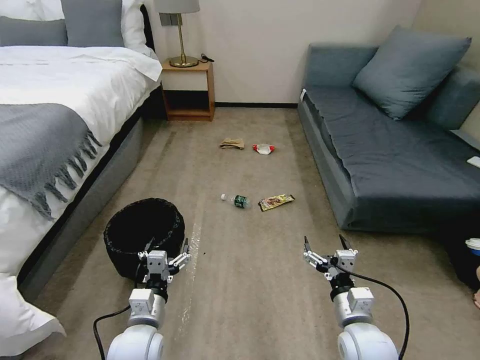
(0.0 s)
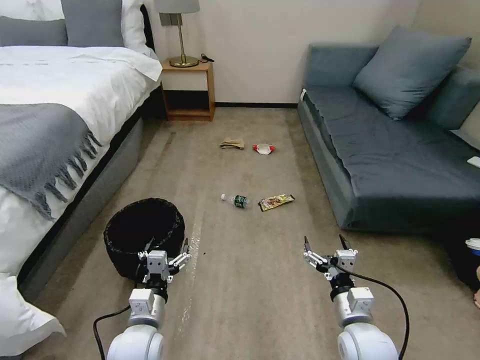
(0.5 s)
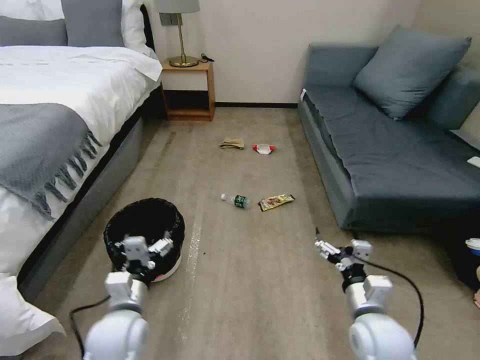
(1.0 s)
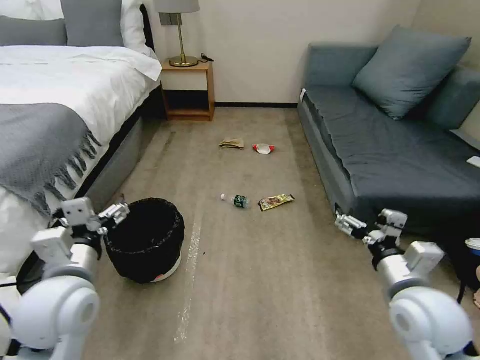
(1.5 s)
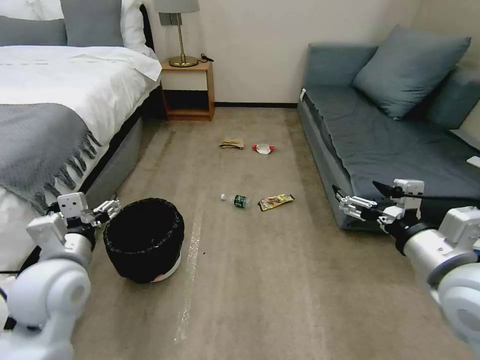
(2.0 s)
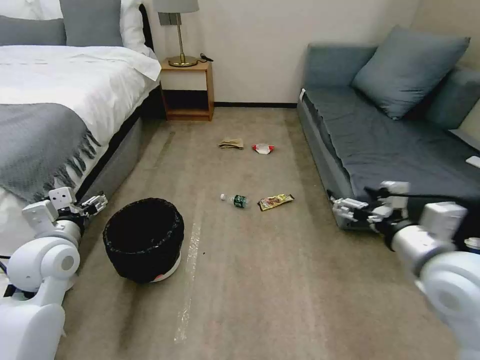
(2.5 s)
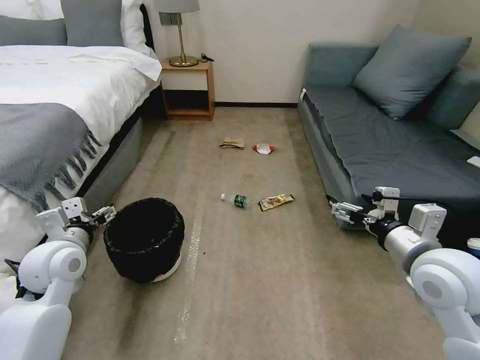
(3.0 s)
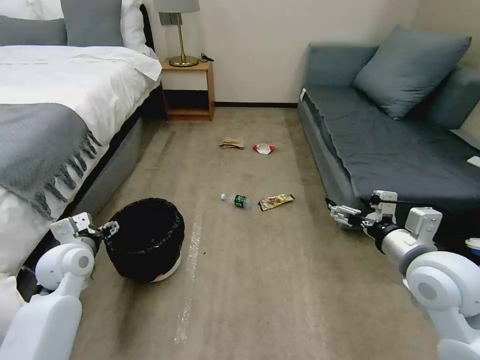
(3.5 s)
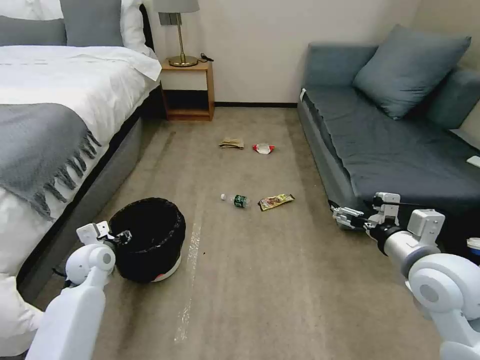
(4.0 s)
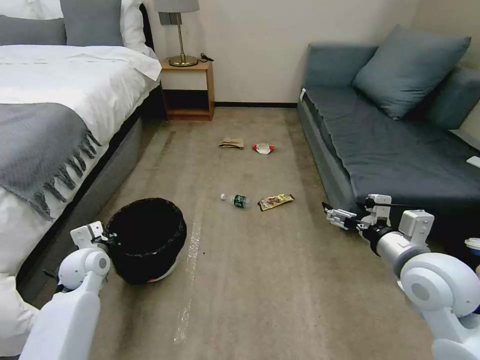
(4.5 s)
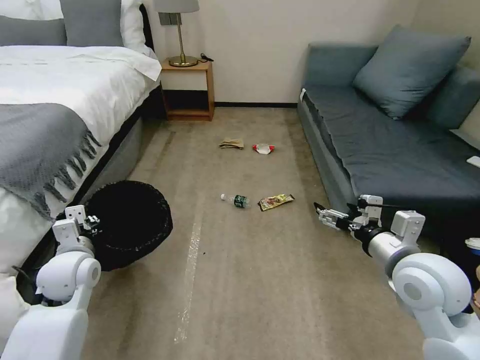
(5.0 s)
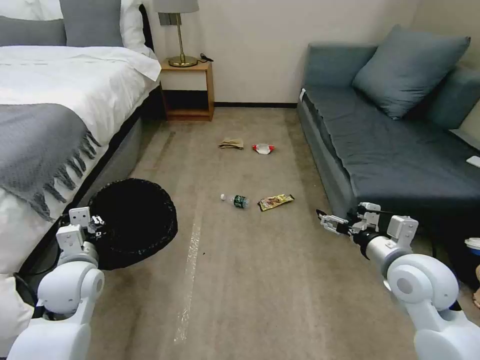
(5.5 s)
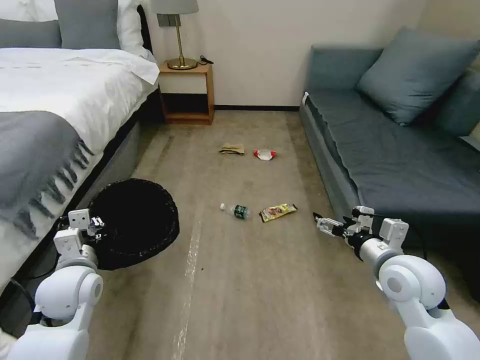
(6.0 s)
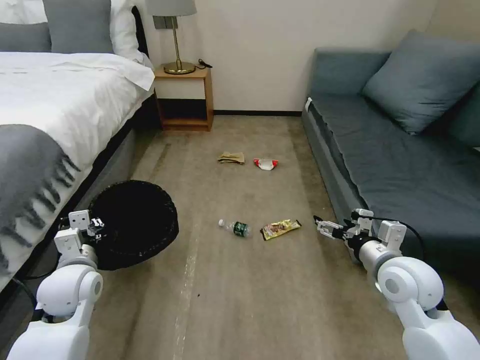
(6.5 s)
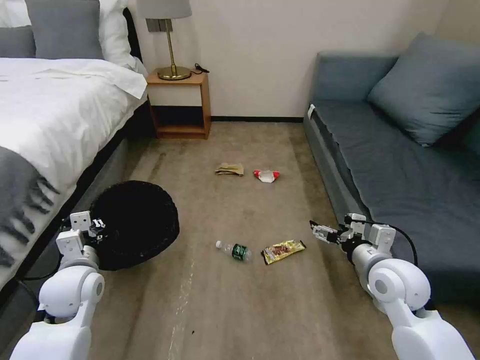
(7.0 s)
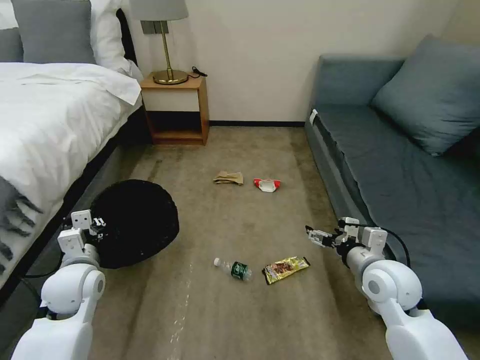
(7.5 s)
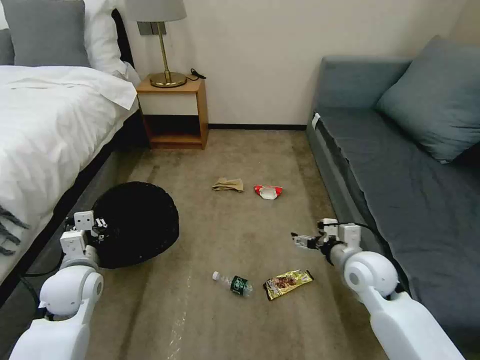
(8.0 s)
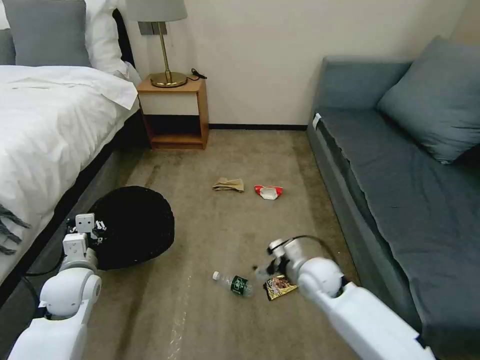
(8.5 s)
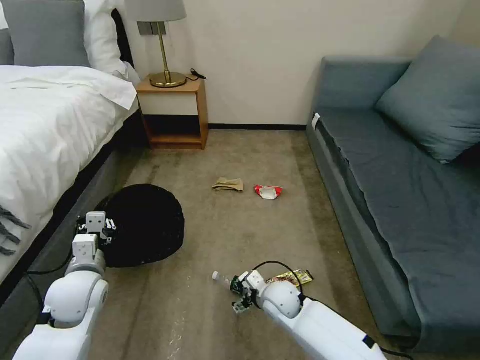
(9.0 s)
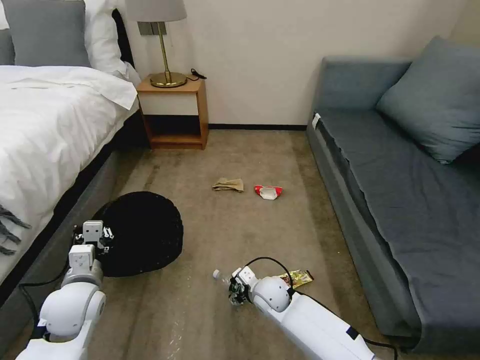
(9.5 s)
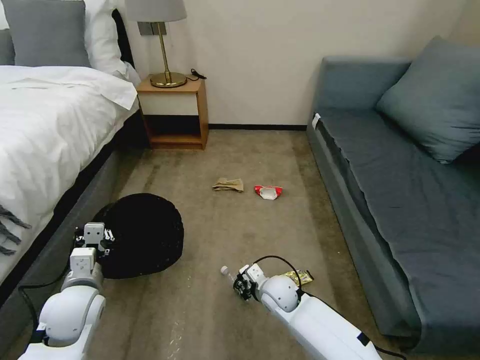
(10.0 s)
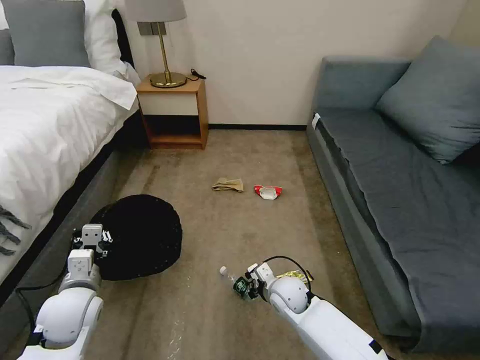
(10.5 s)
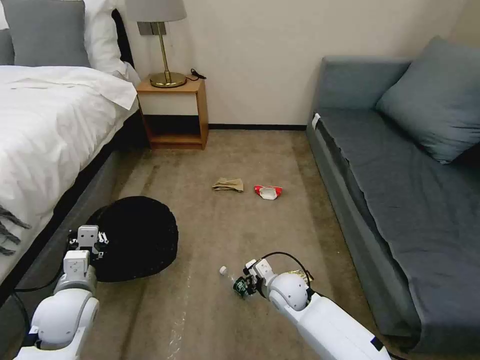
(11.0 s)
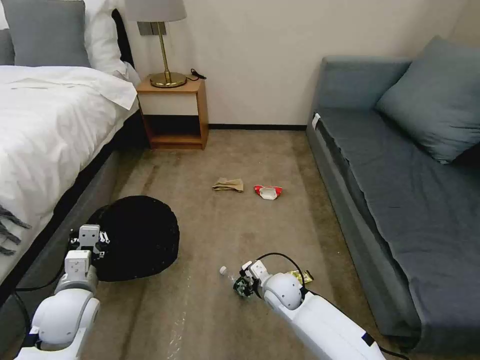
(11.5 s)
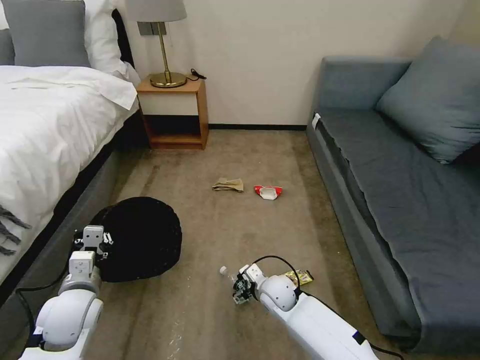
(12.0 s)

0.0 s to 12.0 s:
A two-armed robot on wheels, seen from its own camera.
Task of the whole recording: Pick up the trash bin, then pick up the garbage on the floor and place it into the trash bin.
2.0 to 4.0 s: The left gripper travels downward, forward and to the left by roughly 20 cm. Meanwhile the right gripper ends up some 5 cm from where it was.
4.0 to 6.0 s: The right gripper moves downward, some 5 cm. Meanwhile the left gripper travels backward and upward by roughly 10 cm, and closes its fingers.
6.0 to 8.0 s: The right gripper shifts some 5 cm downward.
8.0 to 10.0 s: The right gripper shifts some 25 cm to the left and downward, and closes.
10.0 to 12.0 s: The right gripper opens up.

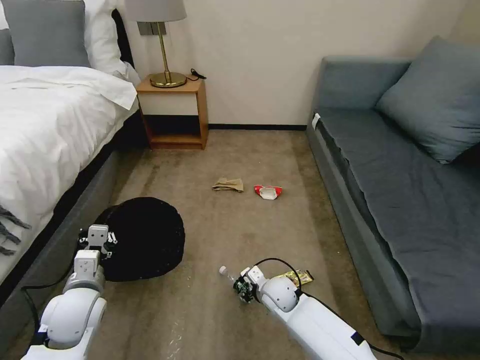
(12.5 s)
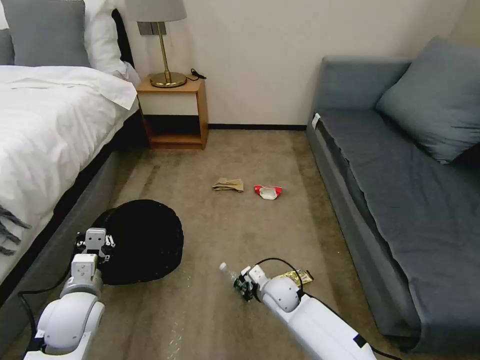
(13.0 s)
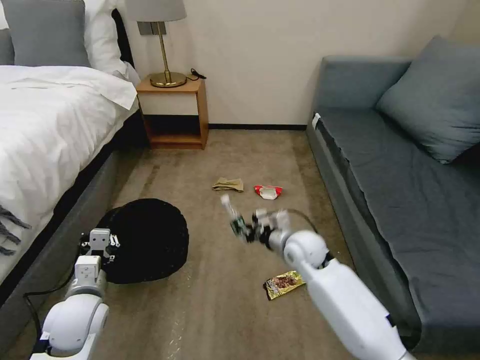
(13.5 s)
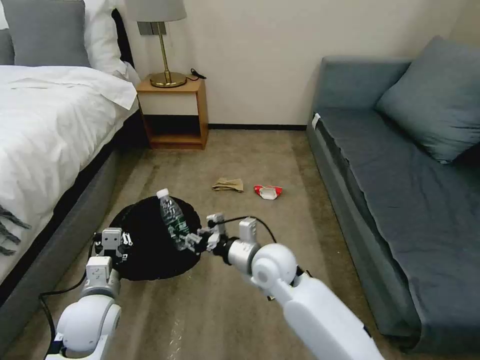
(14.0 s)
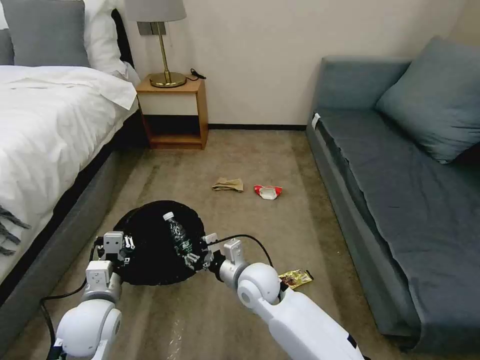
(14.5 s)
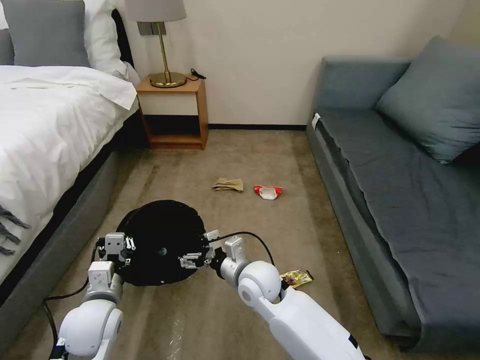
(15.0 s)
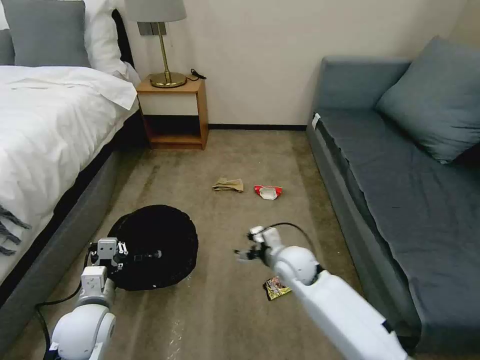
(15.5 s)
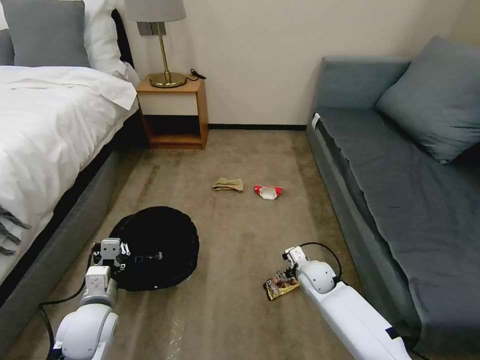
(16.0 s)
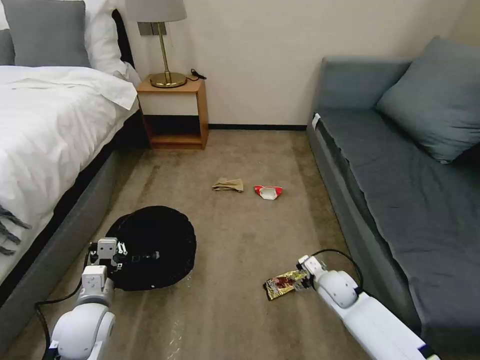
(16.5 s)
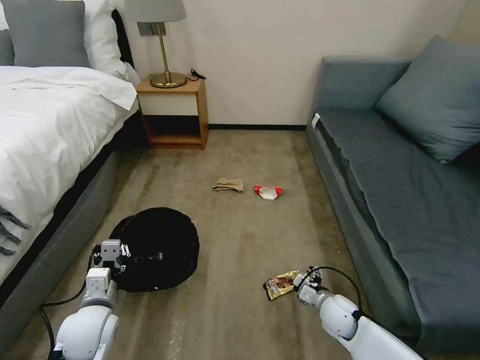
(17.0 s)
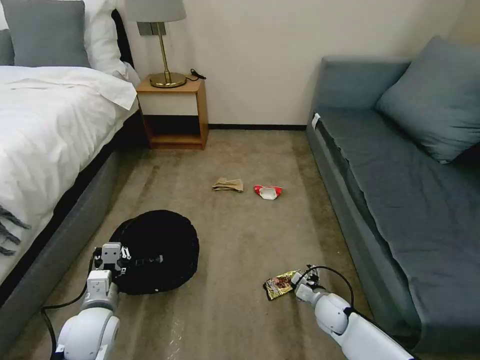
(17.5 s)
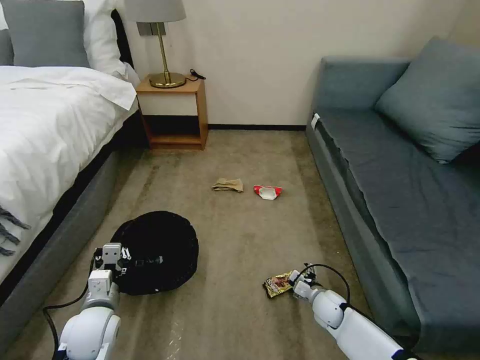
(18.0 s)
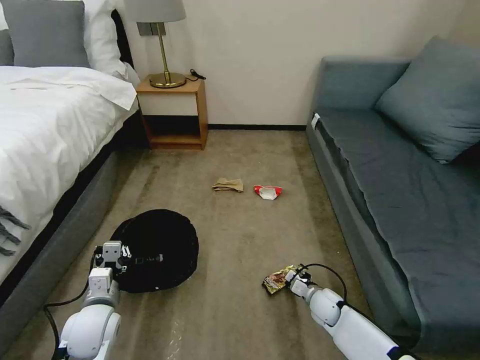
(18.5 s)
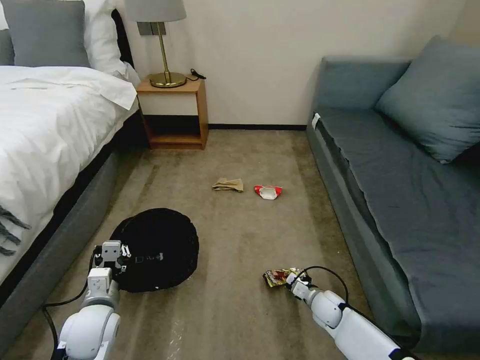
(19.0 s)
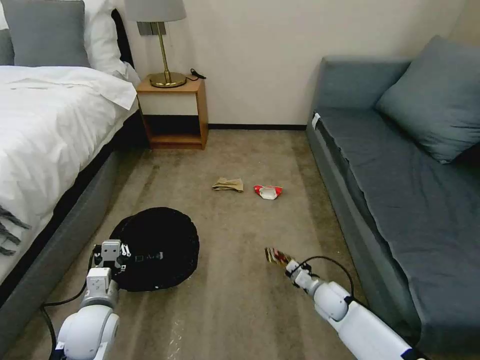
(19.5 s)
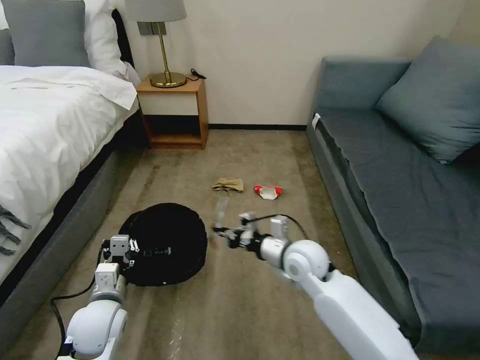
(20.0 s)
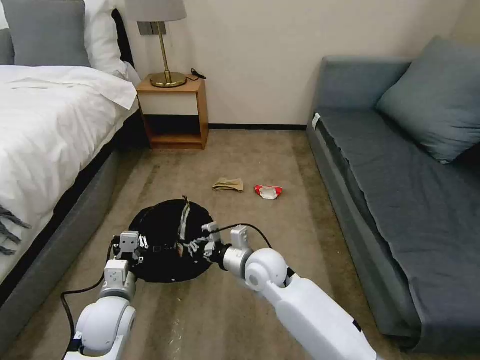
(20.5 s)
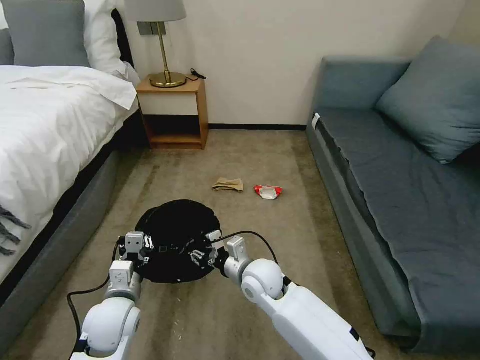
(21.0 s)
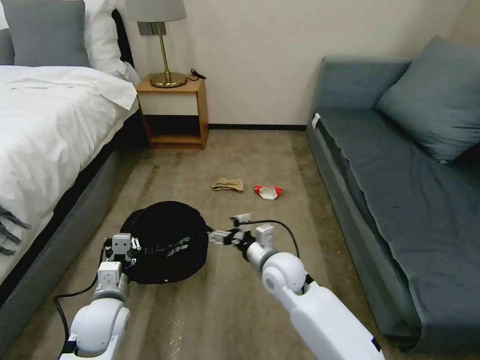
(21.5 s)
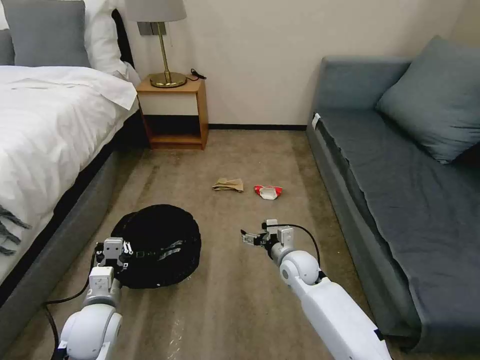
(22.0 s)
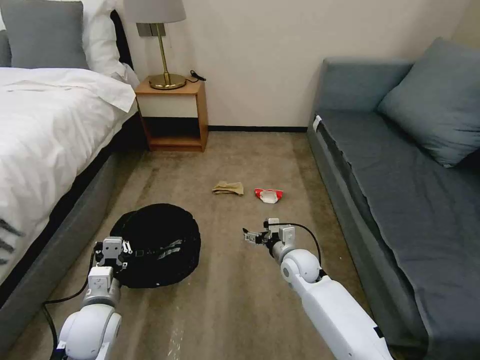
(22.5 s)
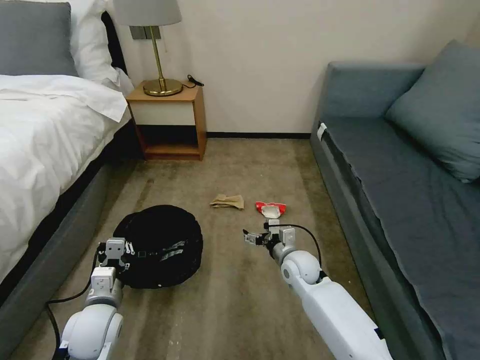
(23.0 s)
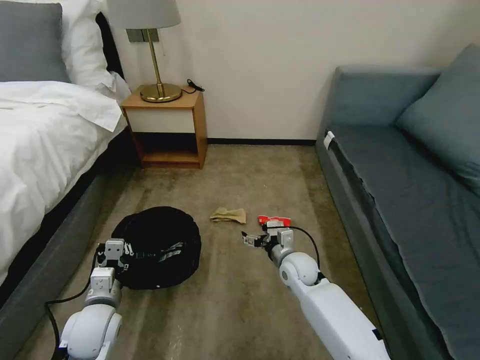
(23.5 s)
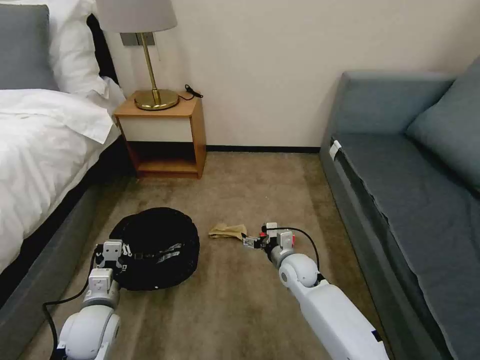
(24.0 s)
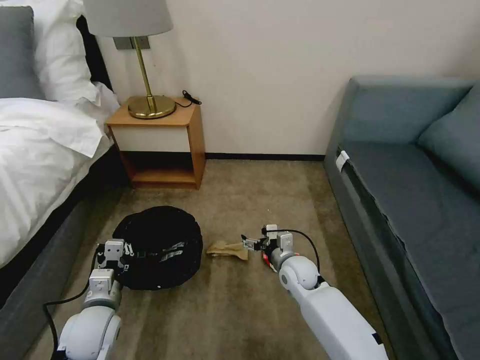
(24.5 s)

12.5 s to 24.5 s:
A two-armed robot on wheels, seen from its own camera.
Task of the whole recording: Pick up the trash bin, then pick up the garbage on the floor and place it into the trash bin.
12.5 to 14.5 s: The right gripper goes some 15 cm upward and to the left.
14.5 to 16.5 s: The right gripper heads to the right and downward, covering some 25 cm, and opens.
16.5 to 18.5 s: The right gripper travels downward by approximately 10 cm, and closes its fingers.
18.5 to 20.5 s: The right gripper goes some 30 cm upward and to the left, and closes up.
20.5 to 22.5 s: The right gripper moves to the right and downward, about 15 cm, and opens its fingers.

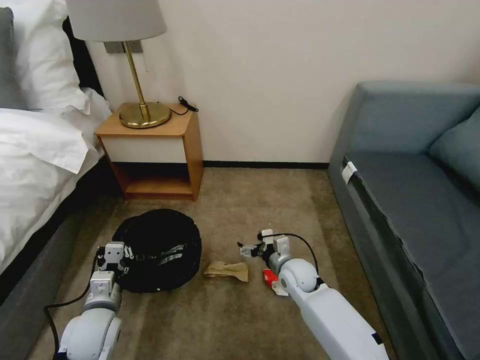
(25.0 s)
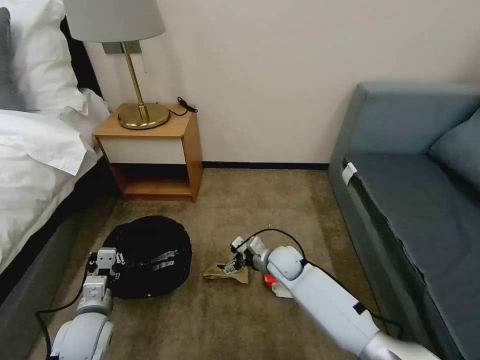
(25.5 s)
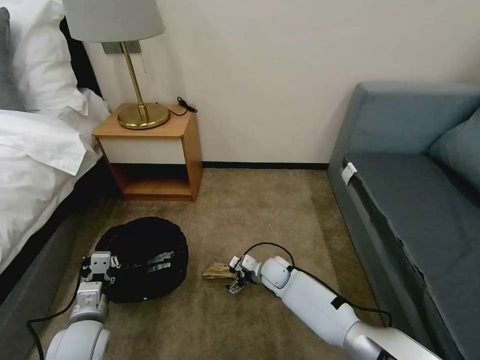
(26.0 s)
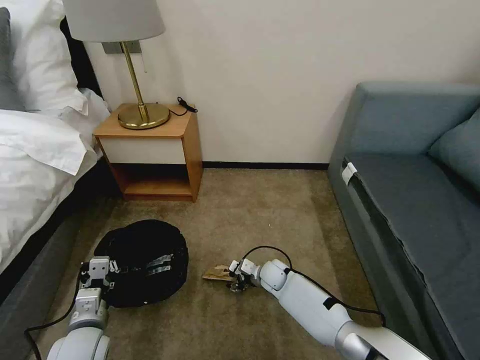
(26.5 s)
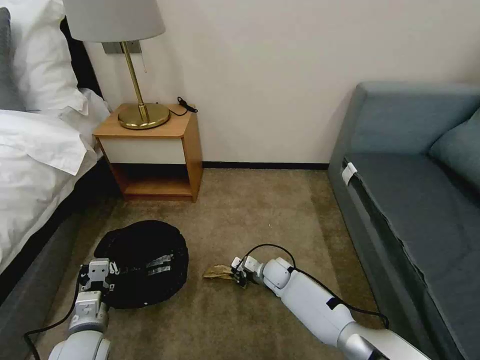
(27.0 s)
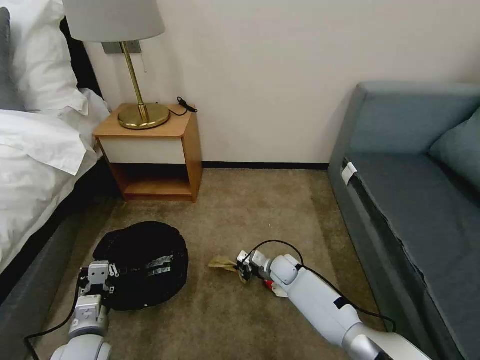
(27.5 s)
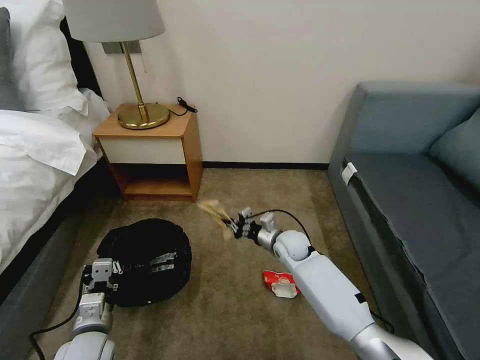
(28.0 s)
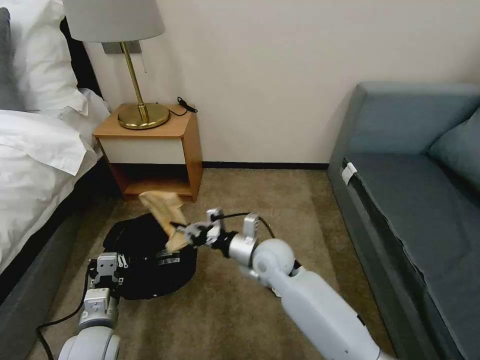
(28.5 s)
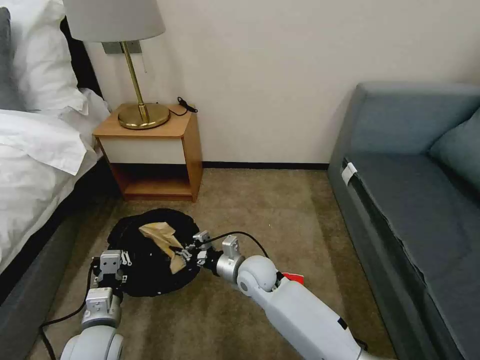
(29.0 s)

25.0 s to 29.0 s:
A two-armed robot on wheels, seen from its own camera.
Task of the whole recording: Pick up the trash bin, then pick up the garbage on the floor and place it into the trash bin.
25.0 to 27.0 s: The right gripper is displaced downward by approximately 10 cm, and closes its fingers.
27.0 to 29.0 s: The right gripper goes approximately 15 cm upward, to the left and backward.
